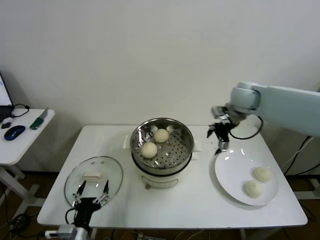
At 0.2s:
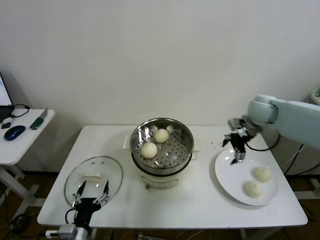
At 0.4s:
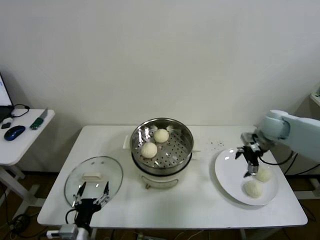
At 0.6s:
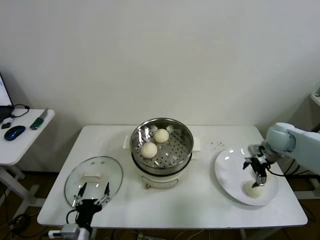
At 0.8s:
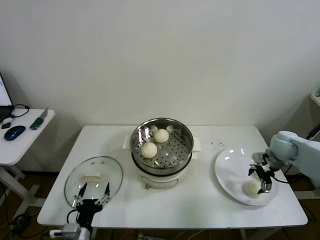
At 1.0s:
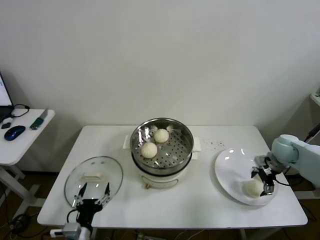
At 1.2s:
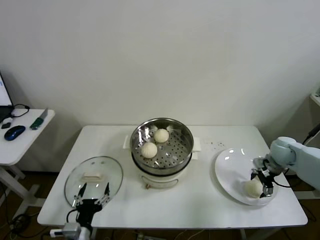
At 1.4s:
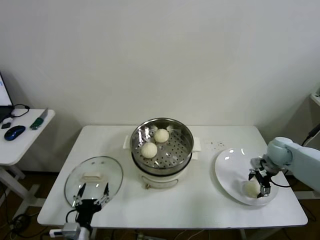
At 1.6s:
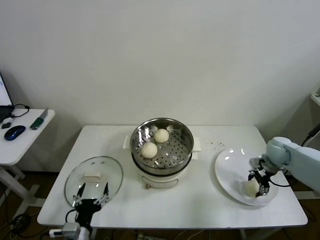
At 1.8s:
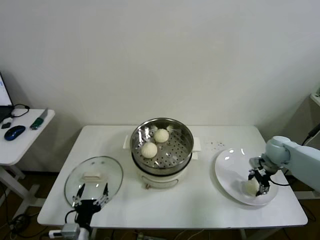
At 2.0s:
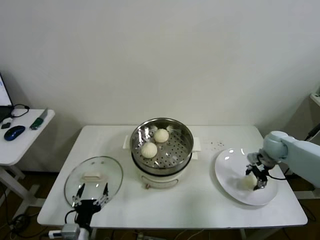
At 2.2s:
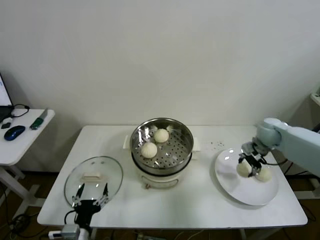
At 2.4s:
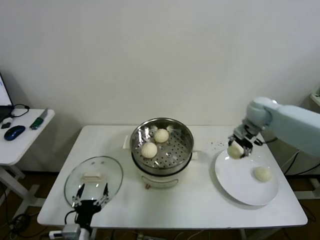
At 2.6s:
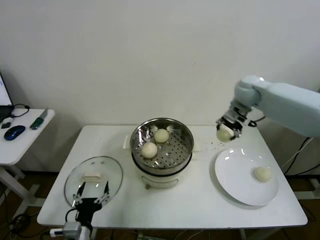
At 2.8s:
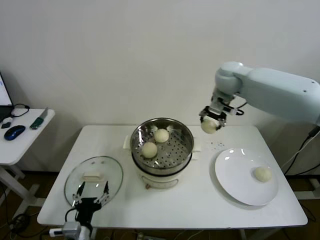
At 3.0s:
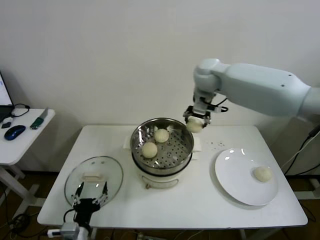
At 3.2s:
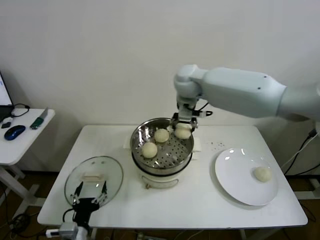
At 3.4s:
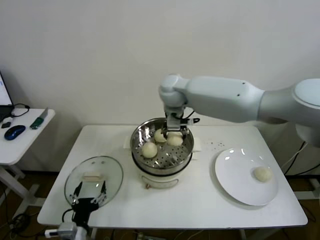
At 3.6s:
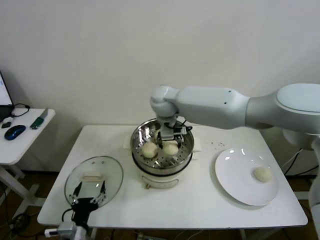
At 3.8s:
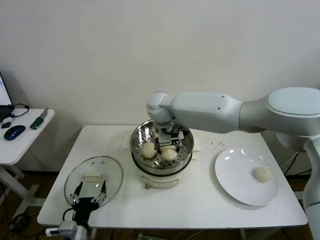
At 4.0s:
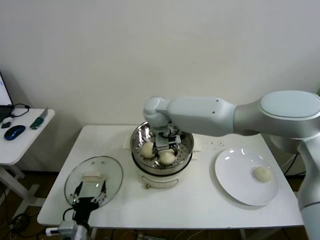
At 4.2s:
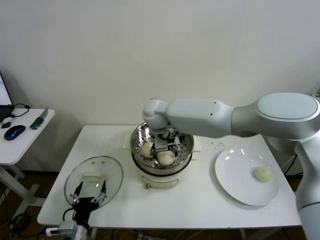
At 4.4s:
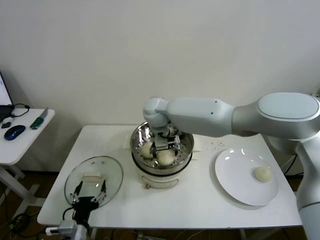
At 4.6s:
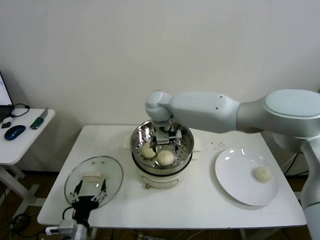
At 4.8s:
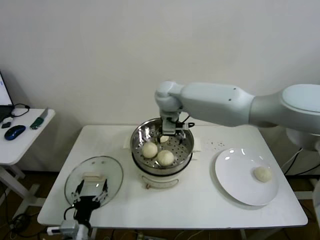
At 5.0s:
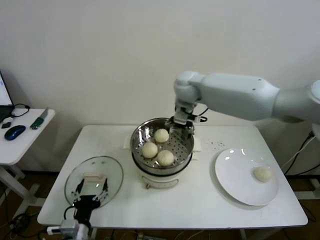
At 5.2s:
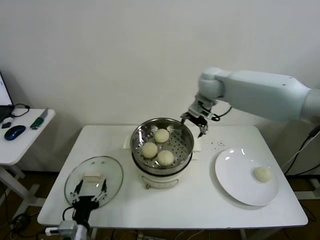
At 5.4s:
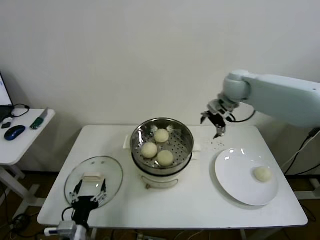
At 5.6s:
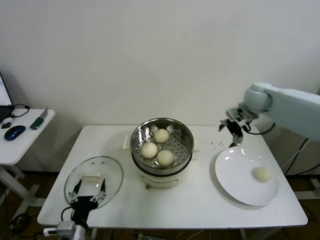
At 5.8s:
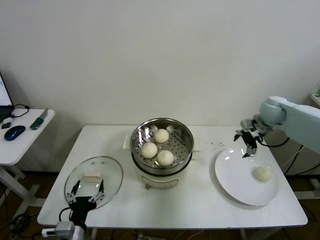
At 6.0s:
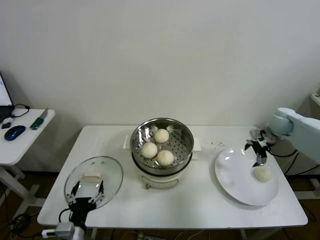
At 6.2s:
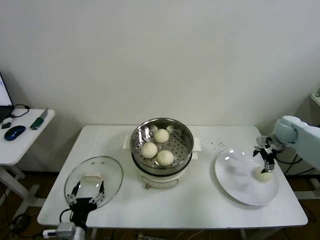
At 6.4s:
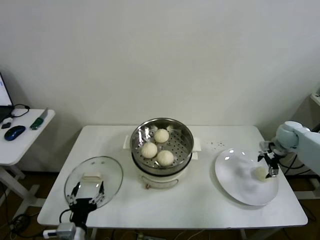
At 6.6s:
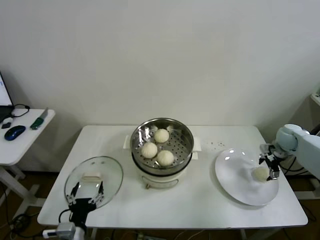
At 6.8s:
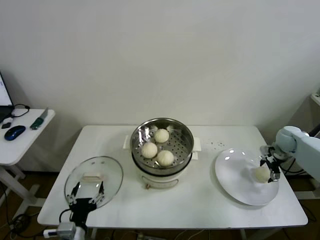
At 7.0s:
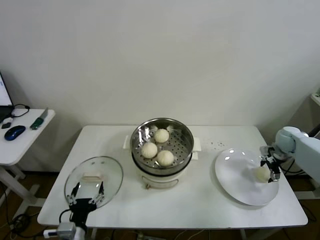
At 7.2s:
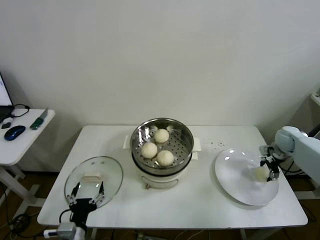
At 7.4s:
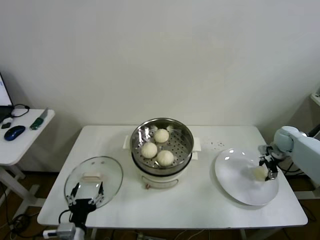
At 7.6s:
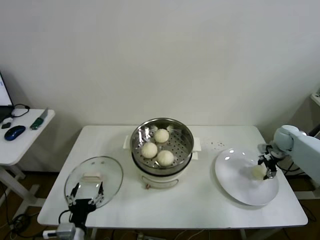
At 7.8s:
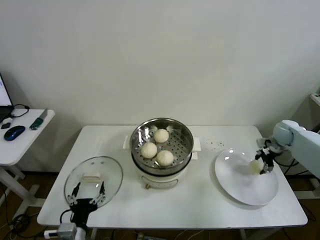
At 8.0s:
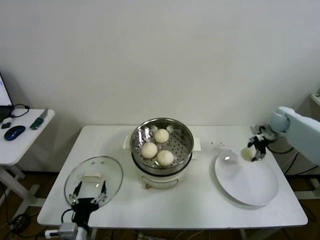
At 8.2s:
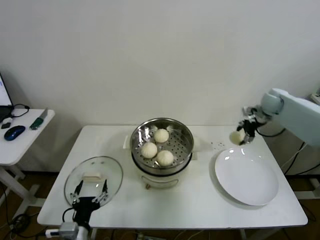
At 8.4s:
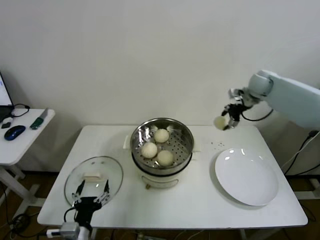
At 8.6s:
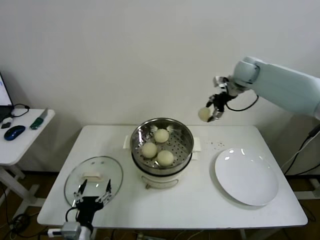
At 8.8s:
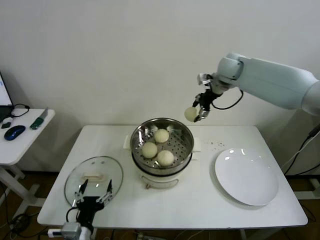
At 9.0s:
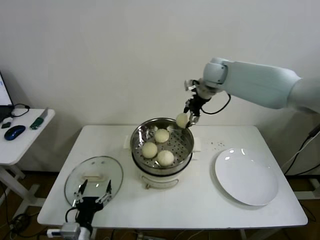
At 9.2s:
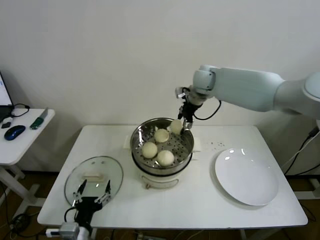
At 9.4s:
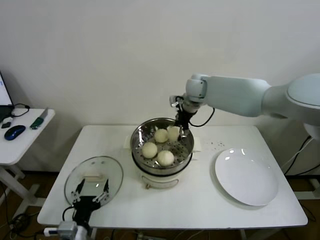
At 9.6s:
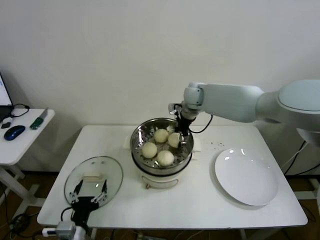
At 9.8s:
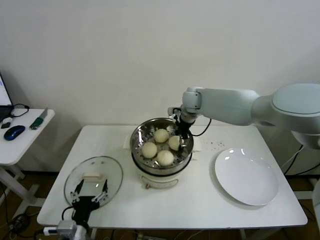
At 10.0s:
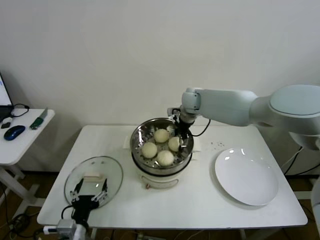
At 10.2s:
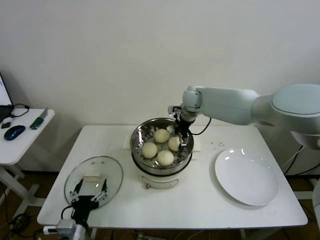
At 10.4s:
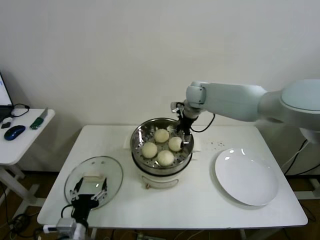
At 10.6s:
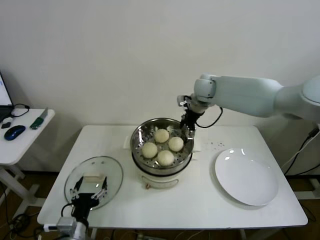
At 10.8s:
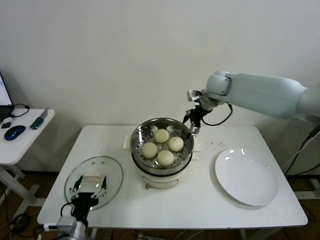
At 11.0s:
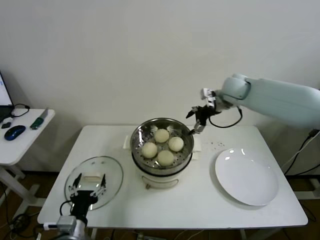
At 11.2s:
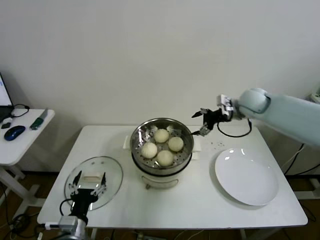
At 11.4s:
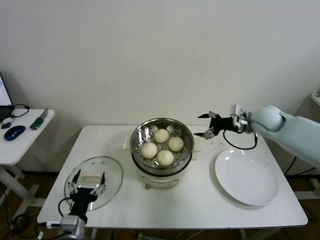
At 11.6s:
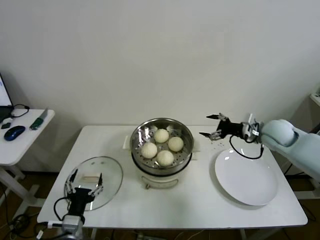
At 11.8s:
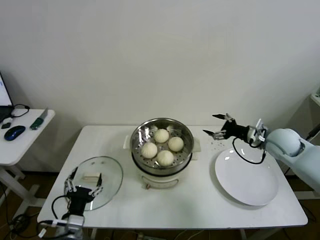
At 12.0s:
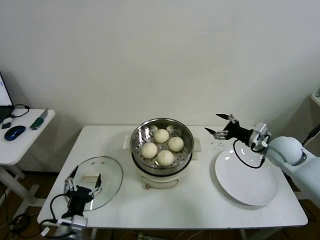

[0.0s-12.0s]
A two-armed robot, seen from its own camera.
Step, 0.0s to 1.4s: Grasp the baozi in the plate with right gripper.
Step, 1.6s to 4.2s: Place the baozi on the steamer with right gripper.
Step, 4.4s to 7.0s: Grasp the baozi in the plate with right gripper.
Step, 7.2s to 9.8s: Place the baozi on the steamer with right gripper.
0.0s to 1.6s: The right gripper is displaced downward and to the right by approximately 25 cm, and closes up.
1.6s to 3.0s: The right gripper heads to the left and upward, covering approximately 40 cm.
3.0s to 4.4s: The right gripper moves to the left and downward, approximately 20 cm, and opens up.
4.4s to 6.0s: The right gripper goes roughly 50 cm to the right.
6.0s to 7.6s: The right gripper is displaced downward and to the right by approximately 10 cm, and closes its fingers.
7.6s to 9.0s: The right gripper travels to the left and upward by roughly 40 cm.
9.0s to 10.4s: The right gripper is displaced downward and to the left by some 10 cm, and opens up.
10.4s to 12.0s: The right gripper is displaced to the right and backward by roughly 30 cm.

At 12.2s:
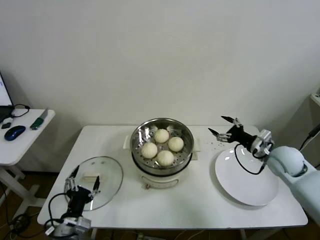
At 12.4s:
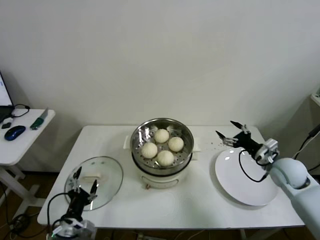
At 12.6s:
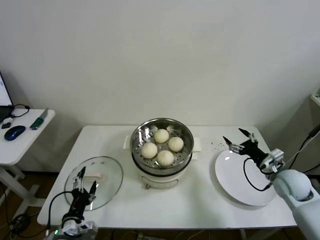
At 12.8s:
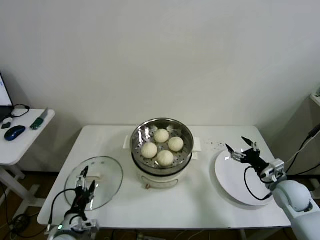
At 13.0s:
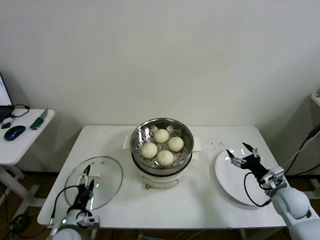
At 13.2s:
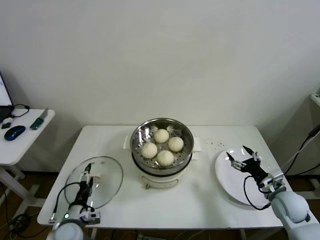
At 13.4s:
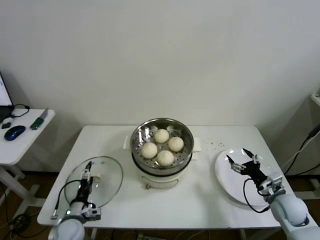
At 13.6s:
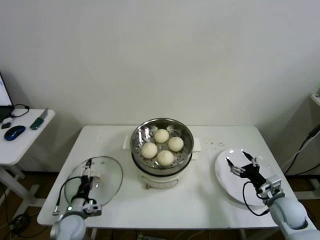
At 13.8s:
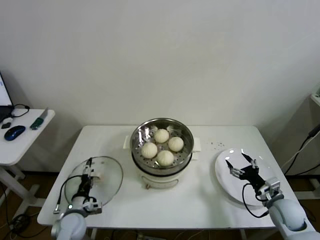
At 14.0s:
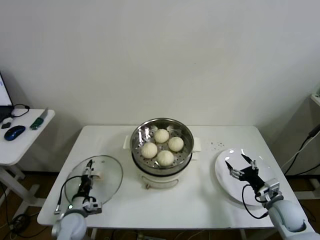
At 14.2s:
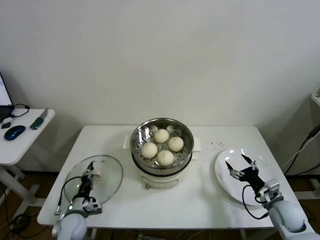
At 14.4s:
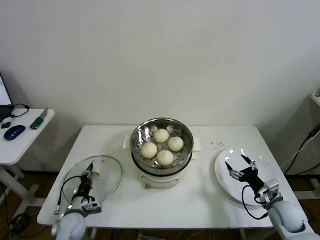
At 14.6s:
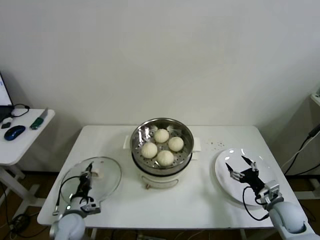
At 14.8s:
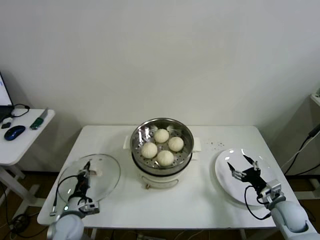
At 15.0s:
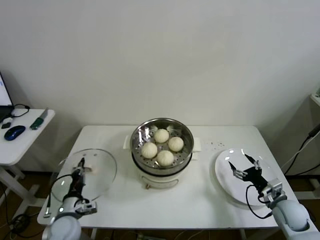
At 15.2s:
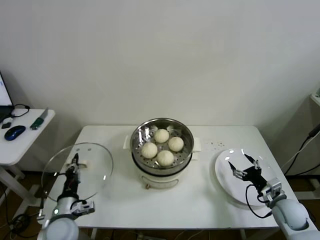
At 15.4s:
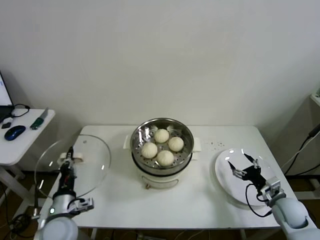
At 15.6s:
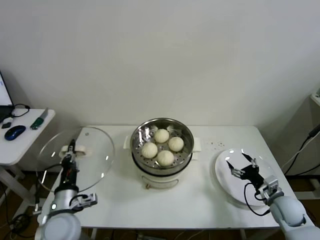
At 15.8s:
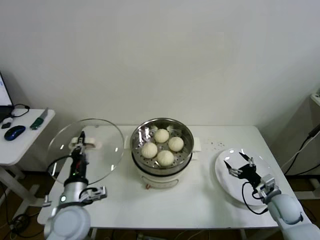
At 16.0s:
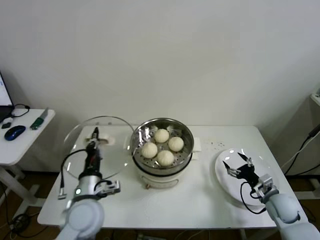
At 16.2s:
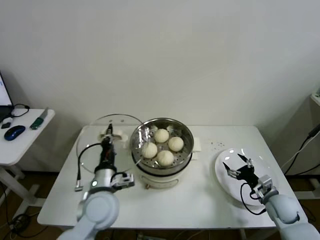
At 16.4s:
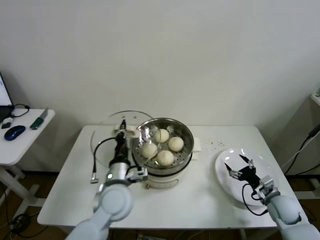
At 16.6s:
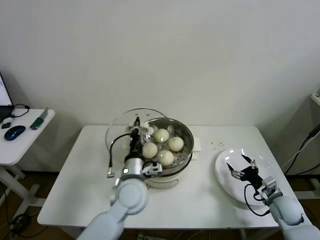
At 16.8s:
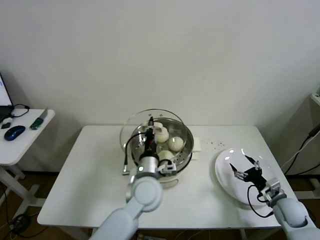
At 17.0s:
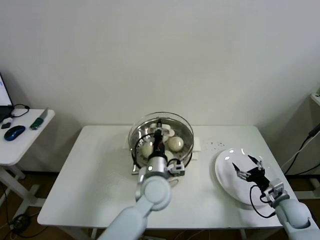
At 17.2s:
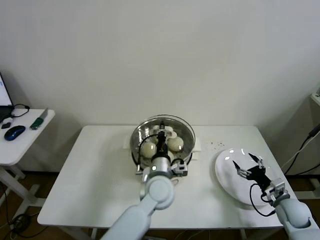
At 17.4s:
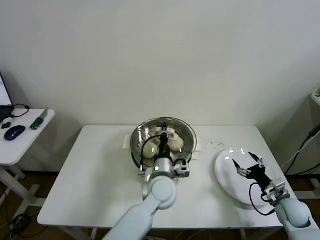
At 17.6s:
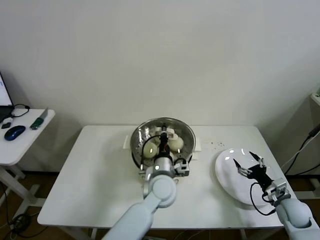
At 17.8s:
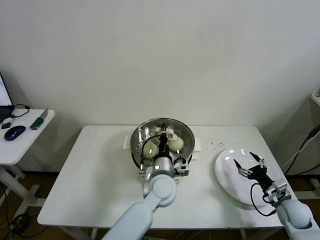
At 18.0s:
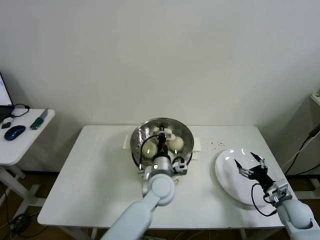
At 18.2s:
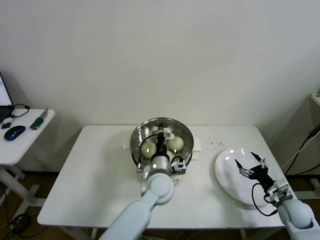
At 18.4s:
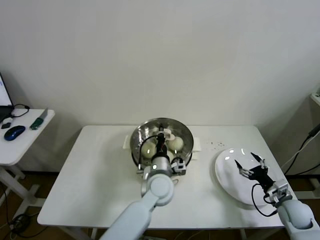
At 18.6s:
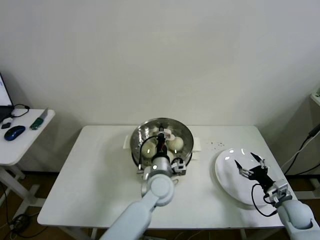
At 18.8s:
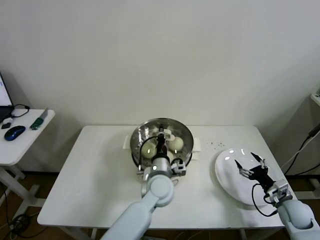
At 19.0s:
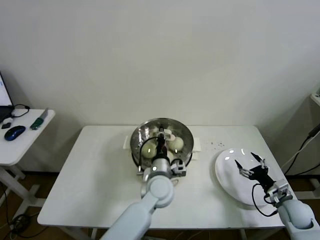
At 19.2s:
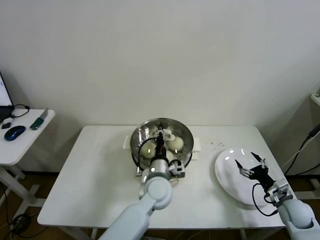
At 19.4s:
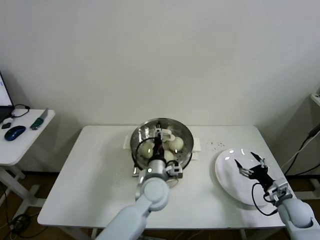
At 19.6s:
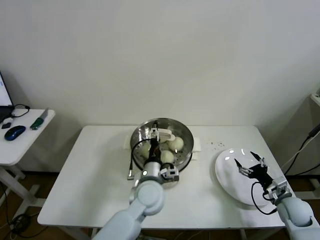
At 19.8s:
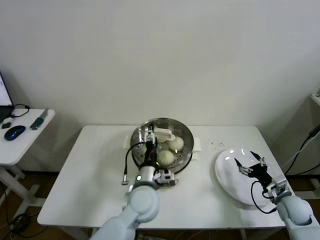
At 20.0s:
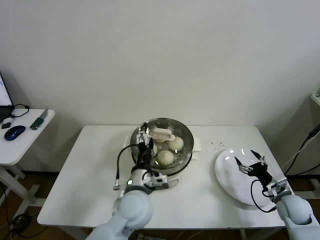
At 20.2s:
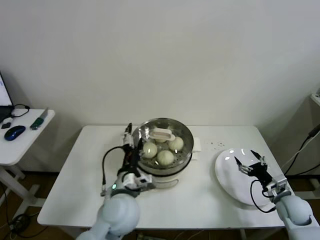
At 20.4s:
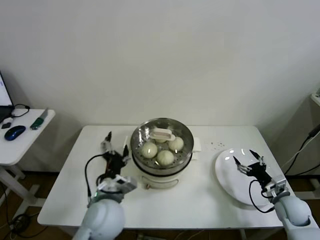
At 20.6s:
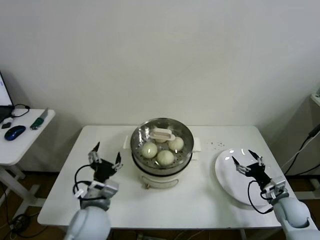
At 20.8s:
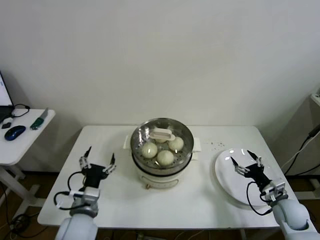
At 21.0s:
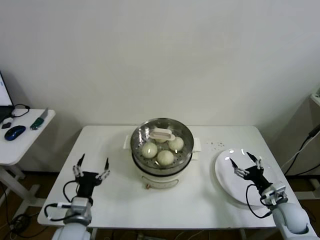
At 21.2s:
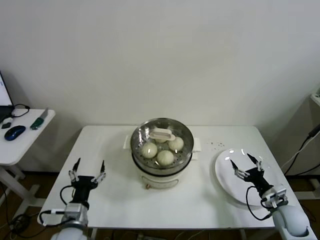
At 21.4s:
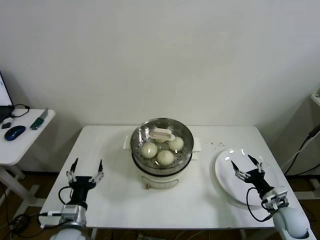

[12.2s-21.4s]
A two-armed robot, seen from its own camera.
Step, 12.2s to 14.4s: Grasp the pot lid with left gripper.
Step, 14.6s to 19.2s: Place the pot lid on the steamer with left gripper.
12.2s to 13.8s: The left gripper moves downward and forward, approximately 15 cm. The right gripper goes roughly 20 cm downward and backward.
13.8s to 15.2s: The left gripper is displaced upward by approximately 5 cm, and closes up.
15.2s to 16.8s: The left gripper moves to the right and upward, about 25 cm.
16.8s to 18.4s: The left gripper travels to the right by roughly 5 cm.
18.4s to 19.8s: The left gripper ends up approximately 5 cm from where it was, and opens up.
19.8s to 21.4s: The left gripper shifts about 25 cm to the left and backward.

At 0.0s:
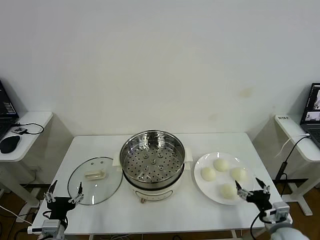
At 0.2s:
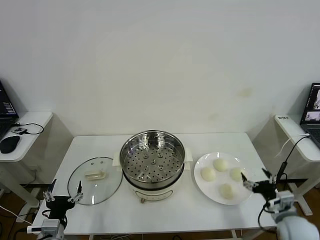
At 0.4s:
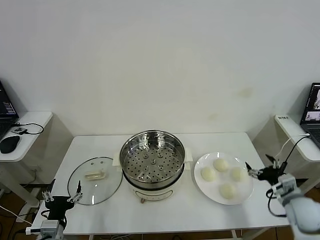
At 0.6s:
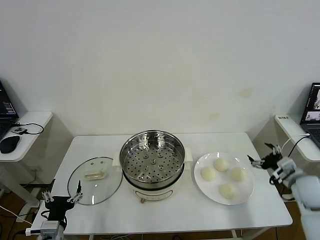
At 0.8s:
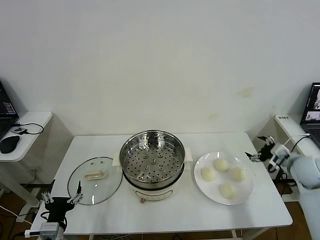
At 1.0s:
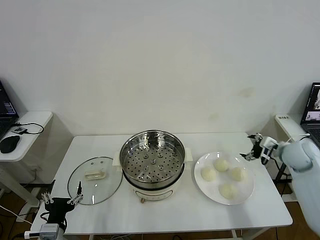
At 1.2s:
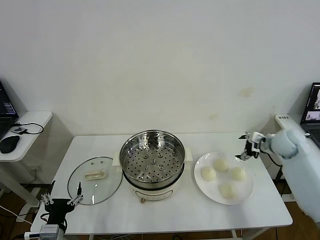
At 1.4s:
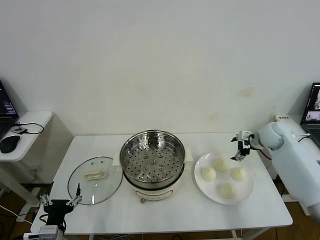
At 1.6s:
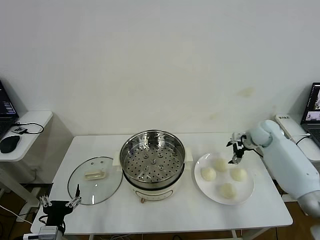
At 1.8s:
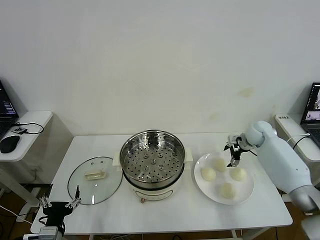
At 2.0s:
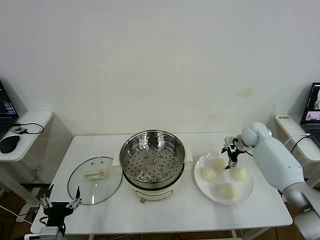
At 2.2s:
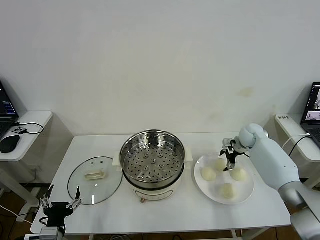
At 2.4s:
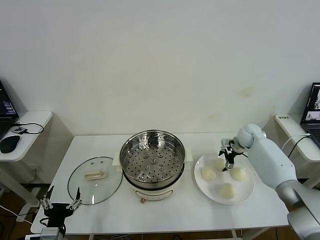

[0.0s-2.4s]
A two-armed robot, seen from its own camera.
1.2s to 2.4s: The right gripper travels forward, downward and to the left by approximately 15 cm.
